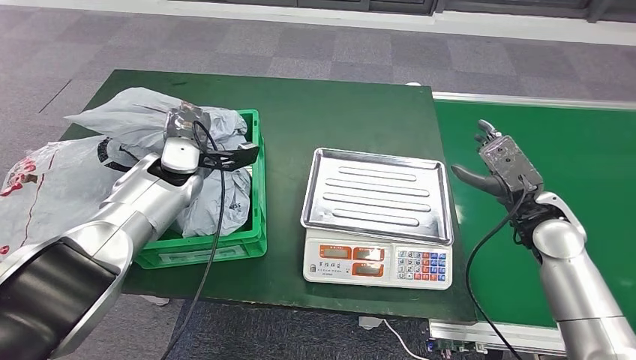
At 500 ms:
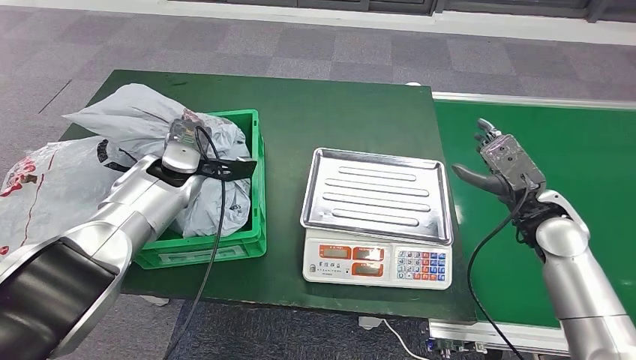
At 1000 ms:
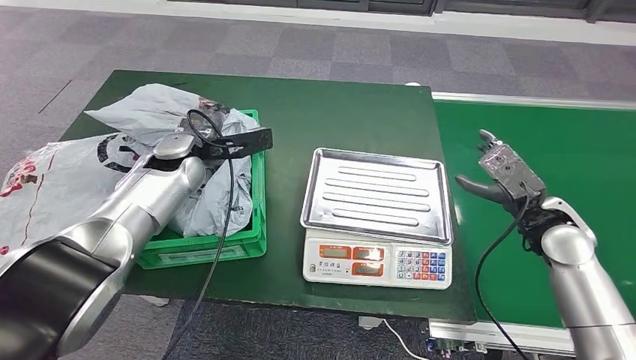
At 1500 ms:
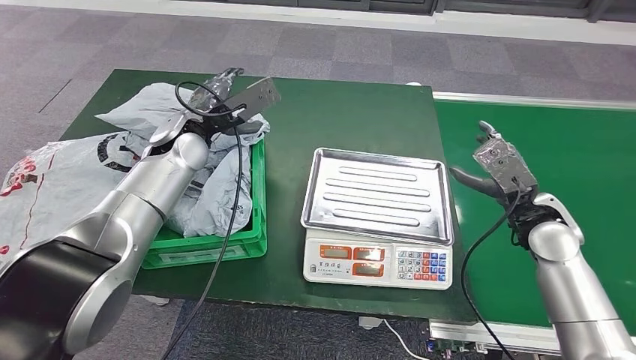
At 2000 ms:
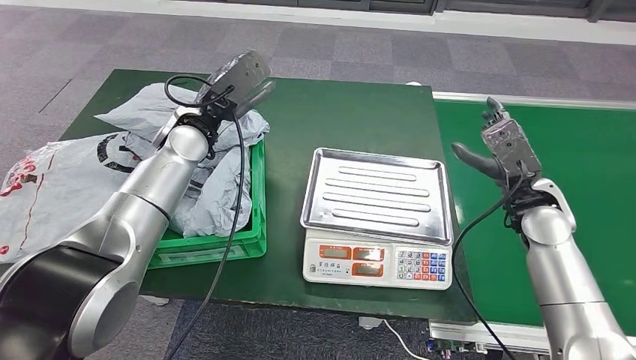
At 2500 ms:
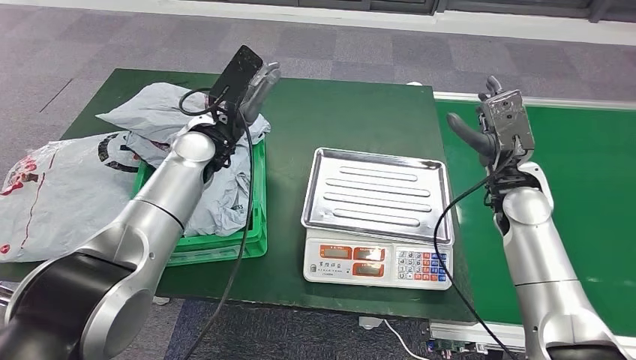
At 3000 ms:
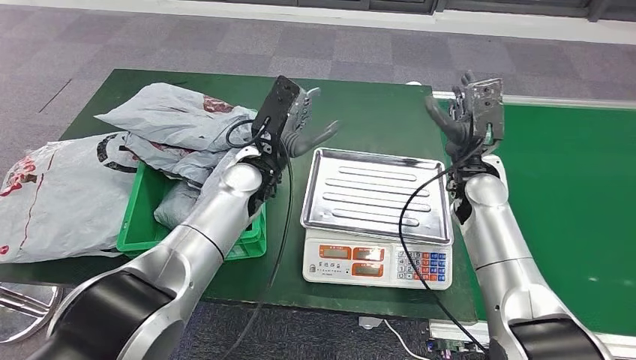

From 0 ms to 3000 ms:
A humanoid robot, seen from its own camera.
Step, from 0 ms to 3000 ms: Place the parcel into the delivery box.
From 0 ms to 1500 ms: The left hand goes some 5 cm upward.

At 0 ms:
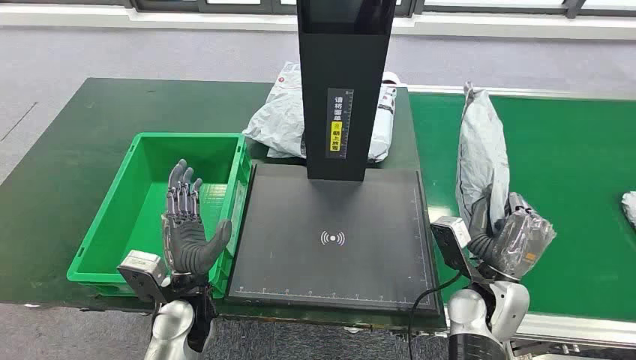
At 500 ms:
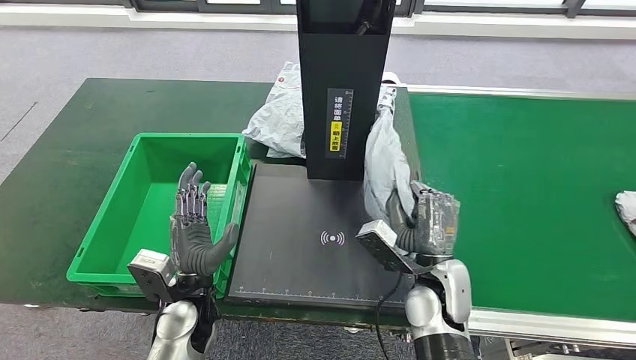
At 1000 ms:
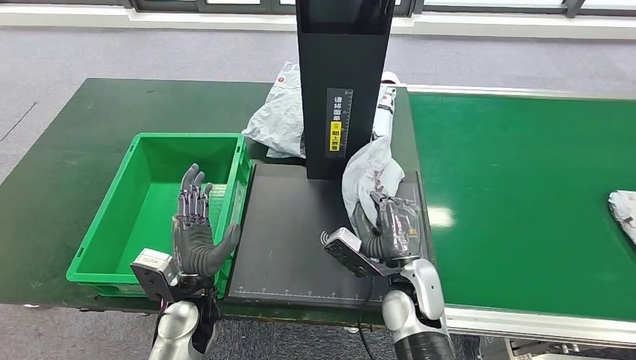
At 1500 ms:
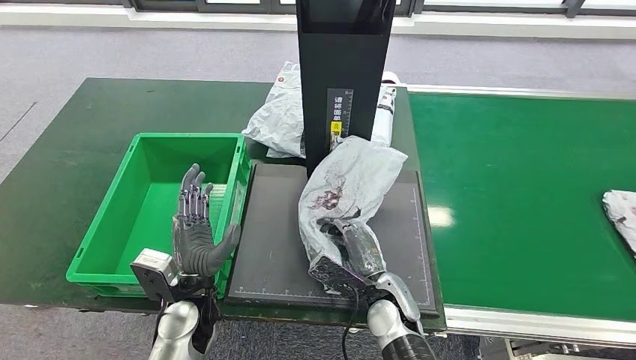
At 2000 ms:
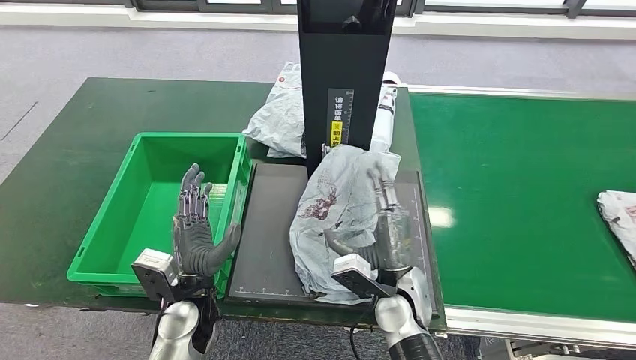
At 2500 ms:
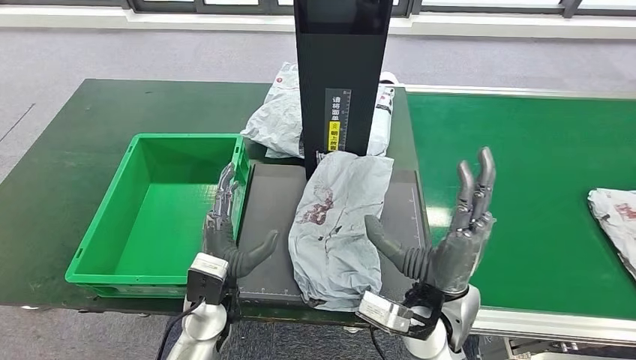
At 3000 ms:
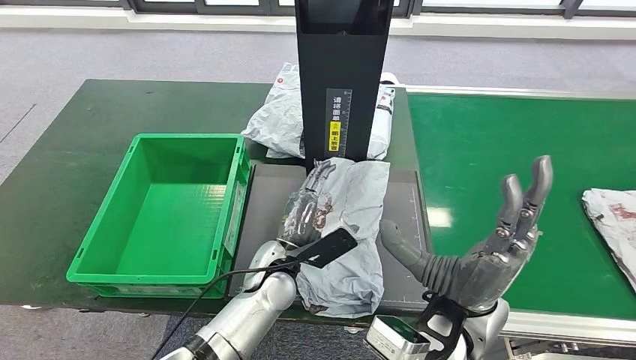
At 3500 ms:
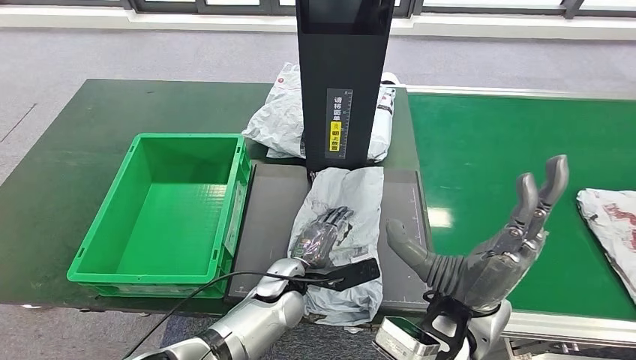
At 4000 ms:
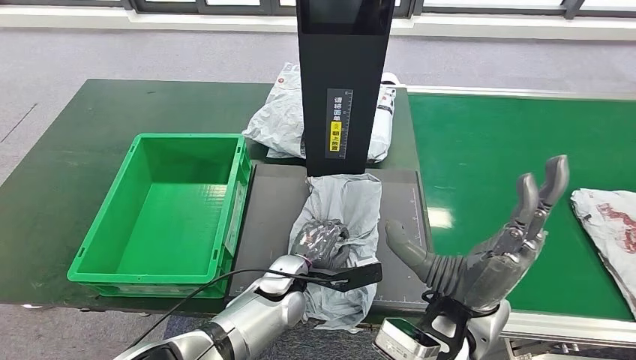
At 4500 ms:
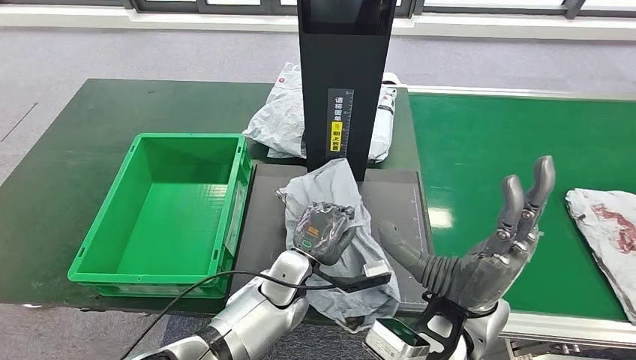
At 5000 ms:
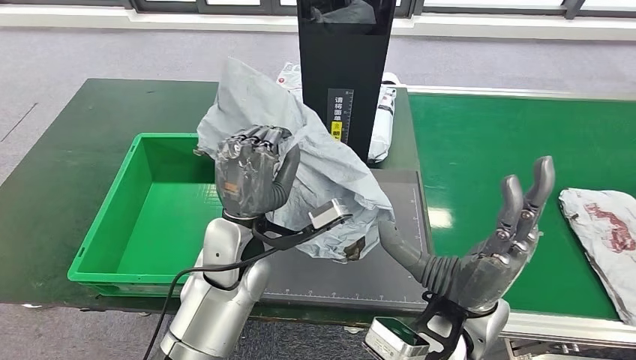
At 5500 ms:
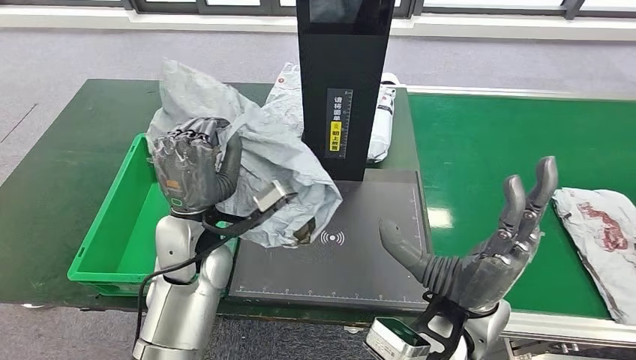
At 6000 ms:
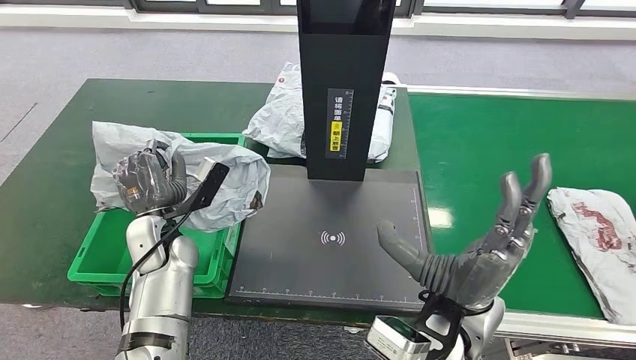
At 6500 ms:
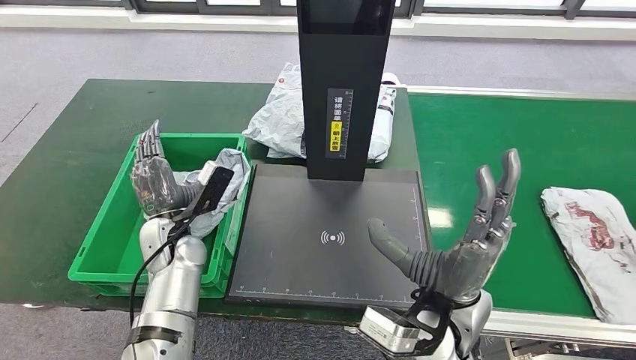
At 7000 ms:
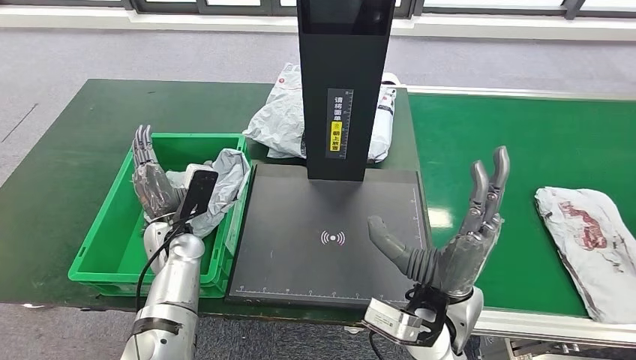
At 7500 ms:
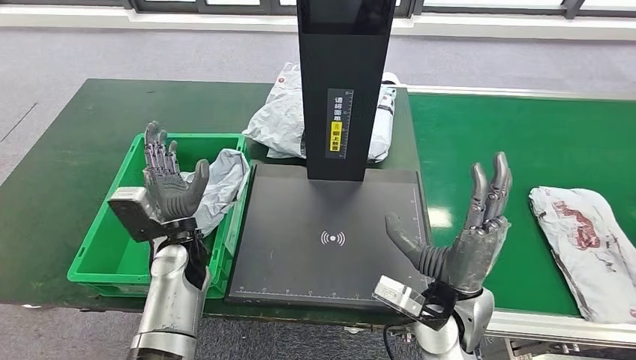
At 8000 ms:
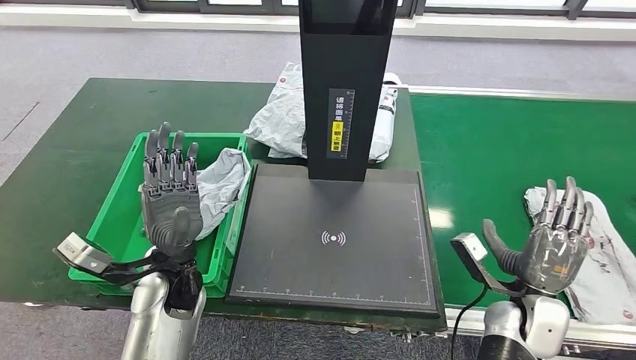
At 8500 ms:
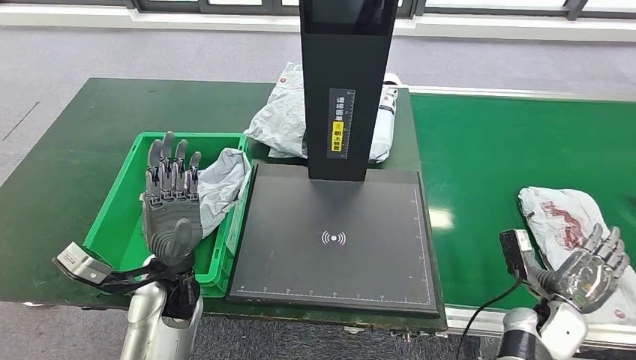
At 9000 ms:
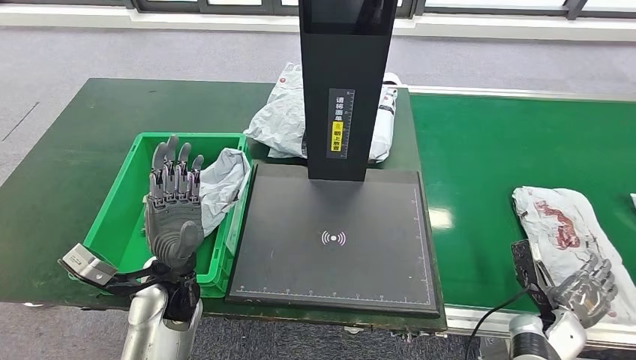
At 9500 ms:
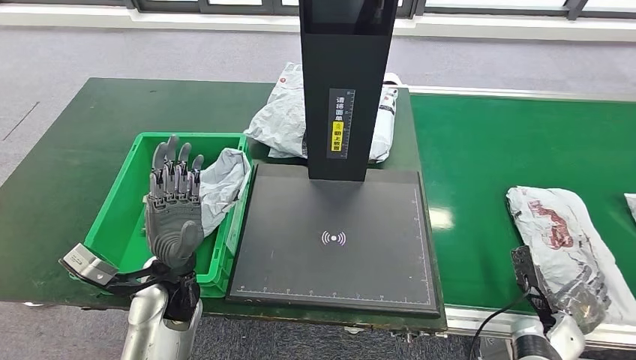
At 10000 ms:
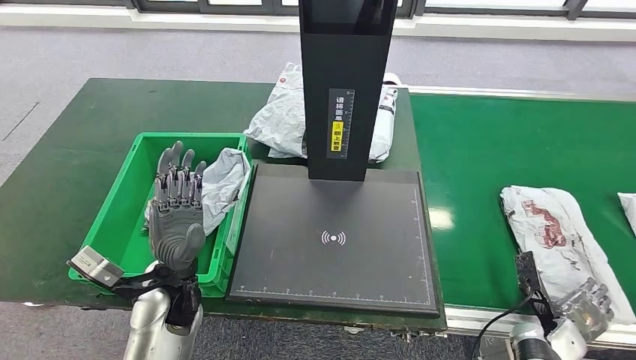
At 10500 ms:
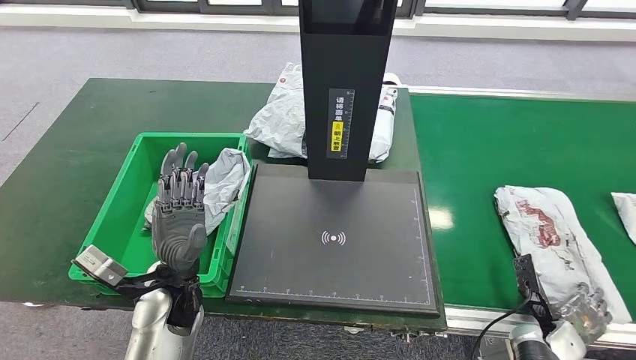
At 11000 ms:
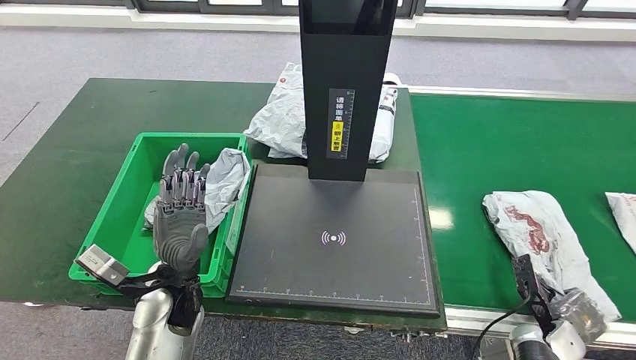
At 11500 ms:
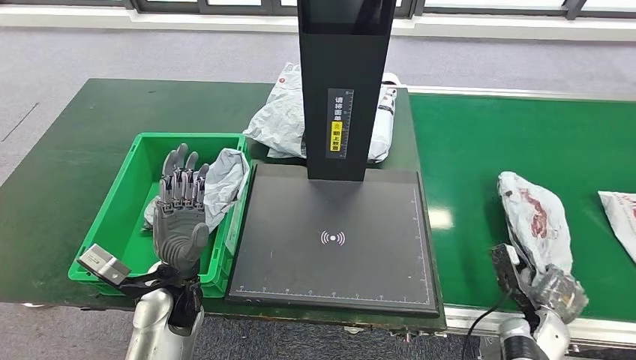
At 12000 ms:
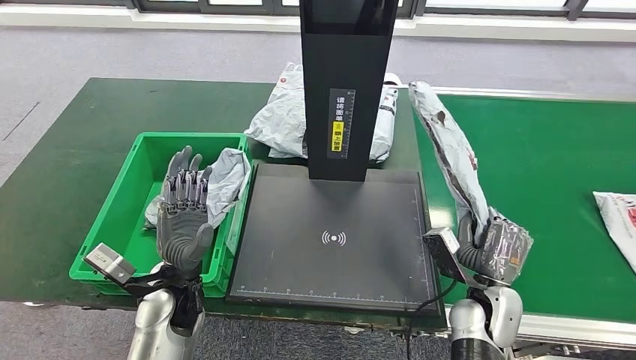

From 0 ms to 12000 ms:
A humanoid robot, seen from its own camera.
Step, from 0 ms to 500 ms: Take the parcel off the conveyor belt.
Step, from 5500 ms to 6000 ms: Pick up the parcel from the inbound machine.
From 8000 ms to 10000 ms: The right hand travels downward and to the right by about 15 cm.
From 10000 ms to 12000 ms: The right hand is displaced to the left and upward by about 15 cm.

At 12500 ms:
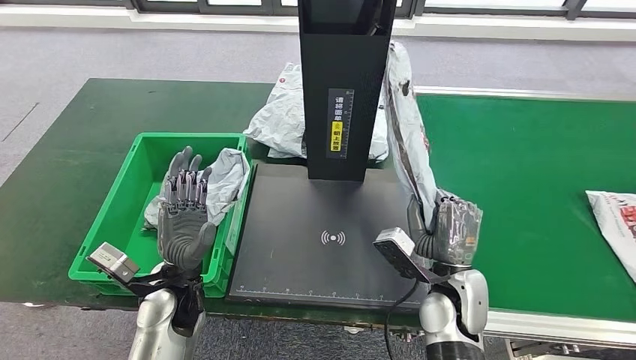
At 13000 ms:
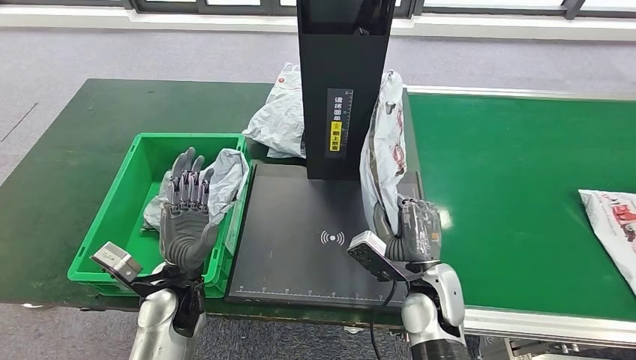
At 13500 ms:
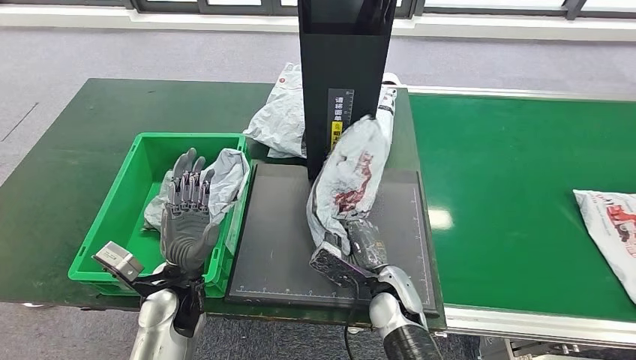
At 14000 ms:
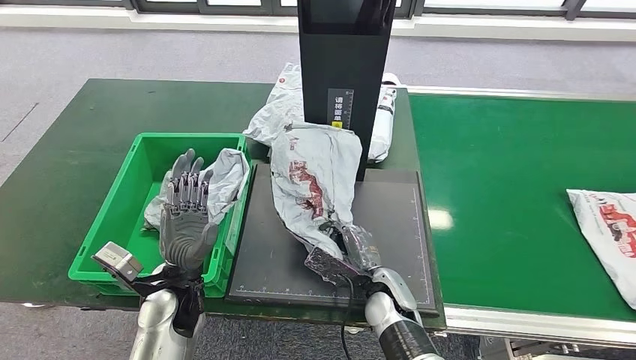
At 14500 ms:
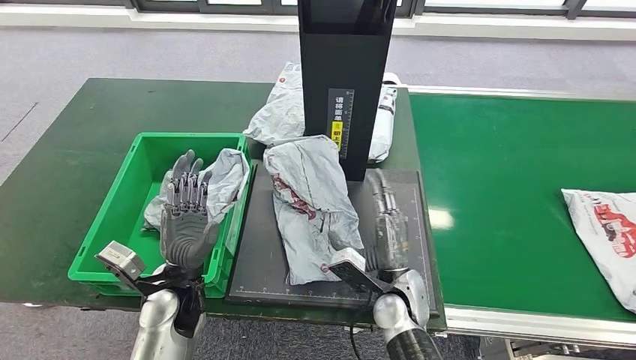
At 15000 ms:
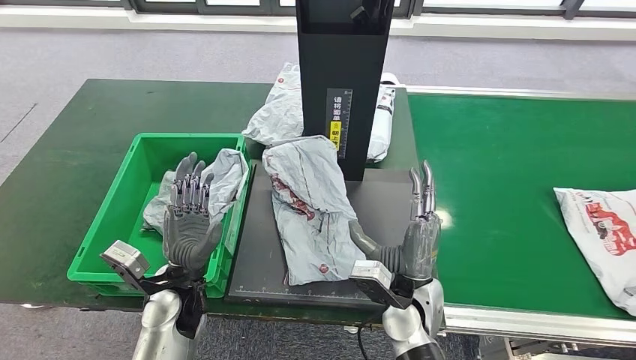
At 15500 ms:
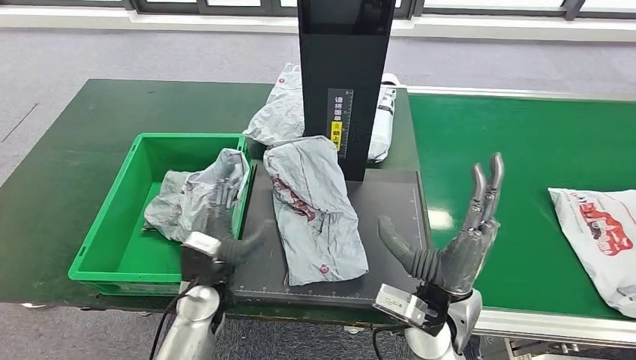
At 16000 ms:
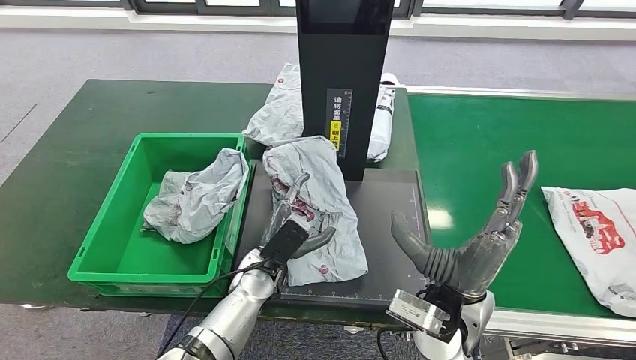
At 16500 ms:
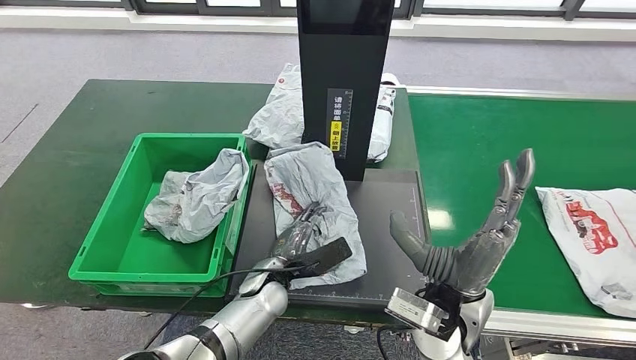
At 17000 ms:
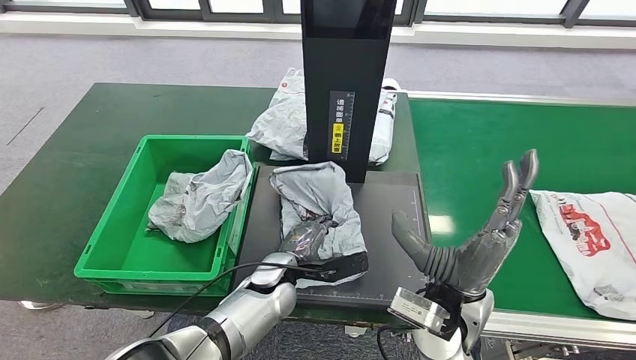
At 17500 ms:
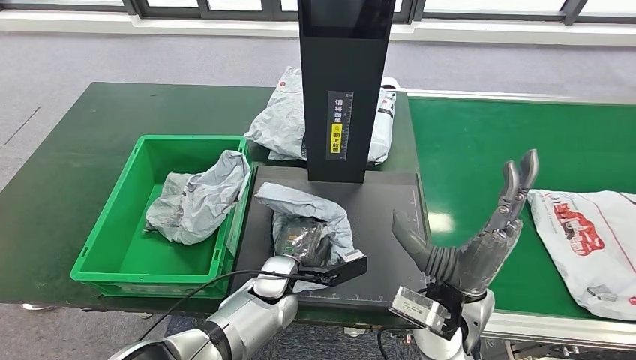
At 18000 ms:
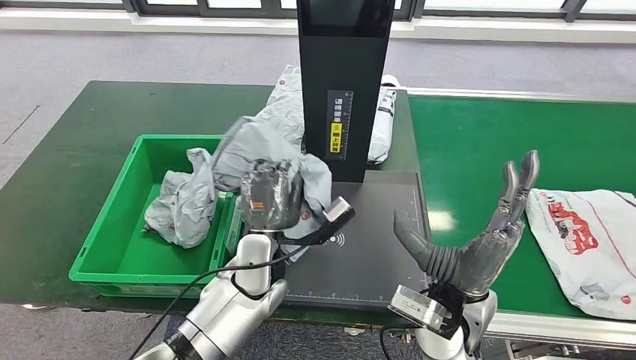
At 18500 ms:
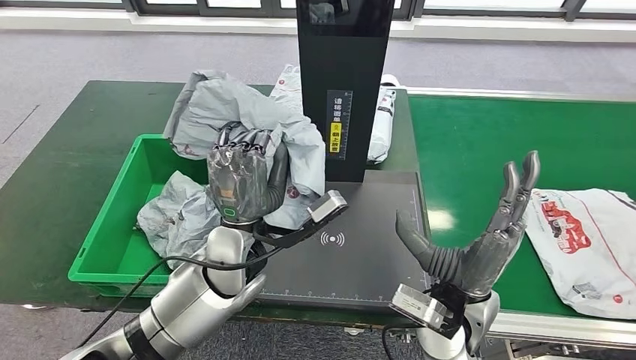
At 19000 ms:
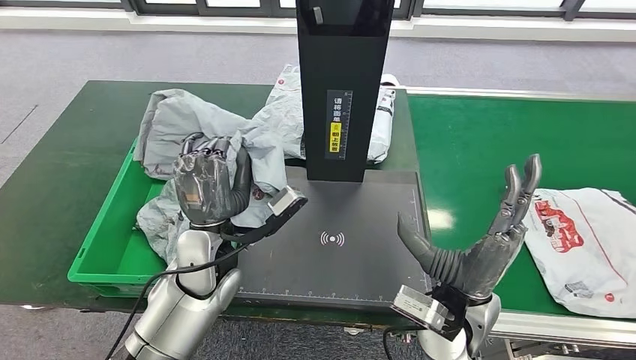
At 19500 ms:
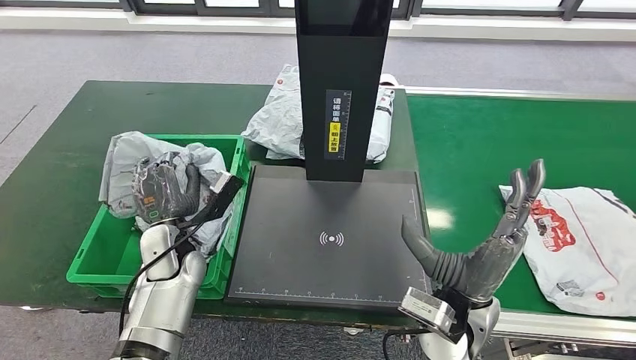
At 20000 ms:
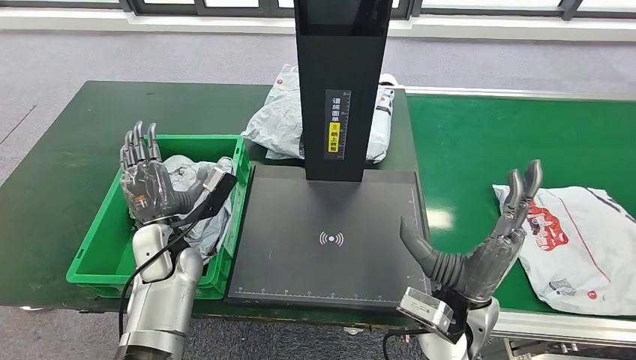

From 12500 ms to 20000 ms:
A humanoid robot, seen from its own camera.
Step, from 12500 ms to 13000 ms: Pick up the parcel from the conveyor belt.
Step, from 14500 ms to 15000 ms: Place the parcel onto the inbound machine.
Step, from 17500 ms to 18000 ms: Pick up the parcel from the inbound machine.
From 12500 ms to 14500 ms: The right hand shifts roughly 10 cm to the left and downward.
